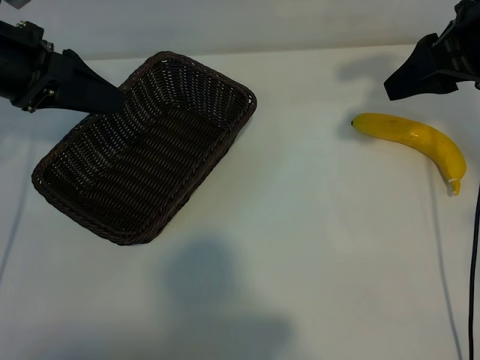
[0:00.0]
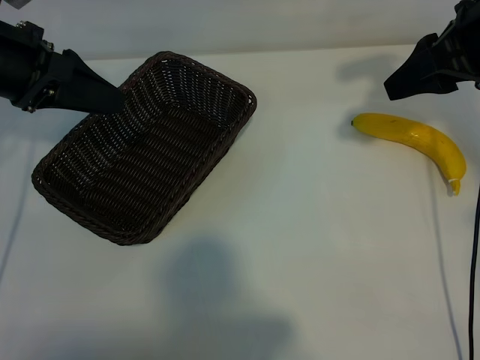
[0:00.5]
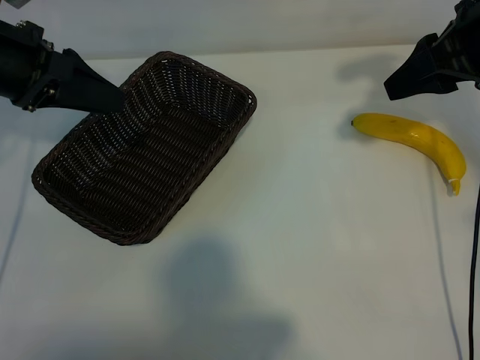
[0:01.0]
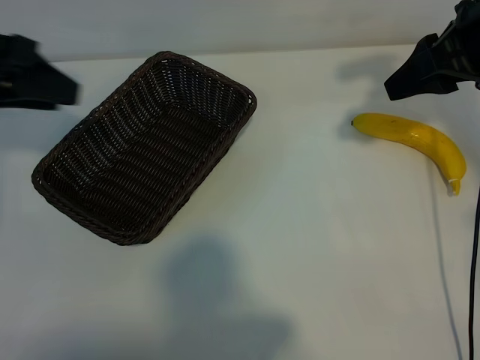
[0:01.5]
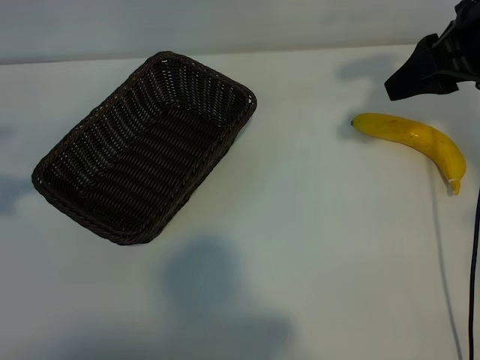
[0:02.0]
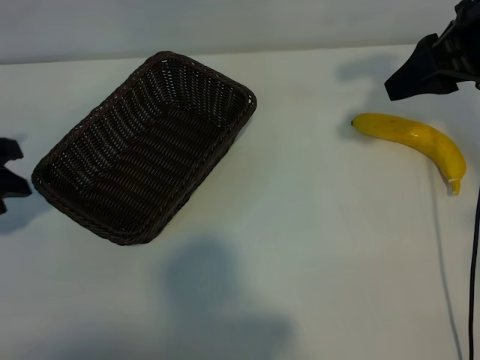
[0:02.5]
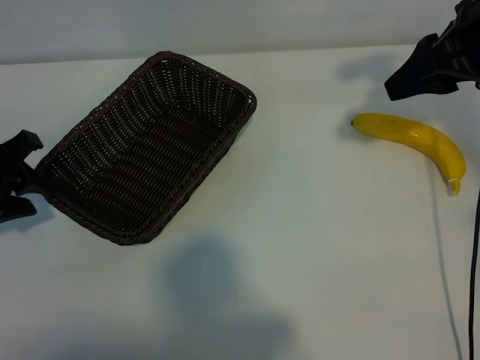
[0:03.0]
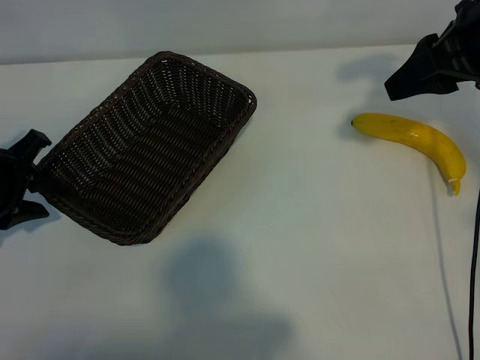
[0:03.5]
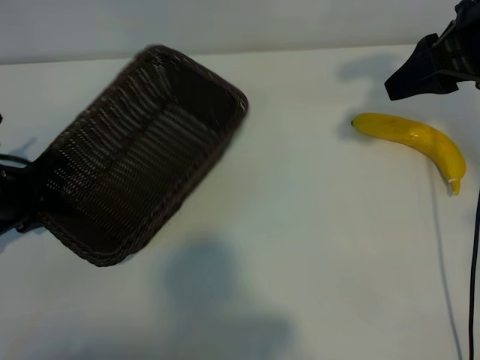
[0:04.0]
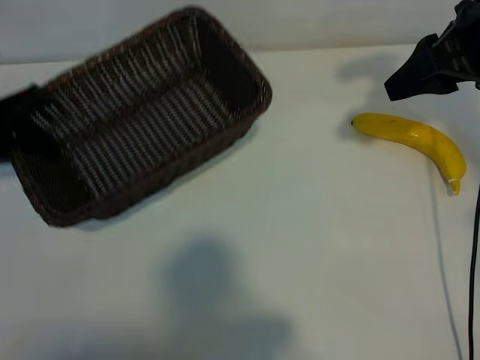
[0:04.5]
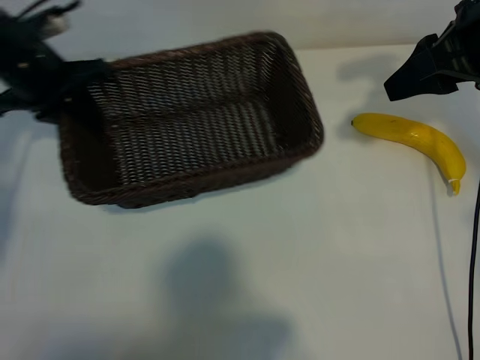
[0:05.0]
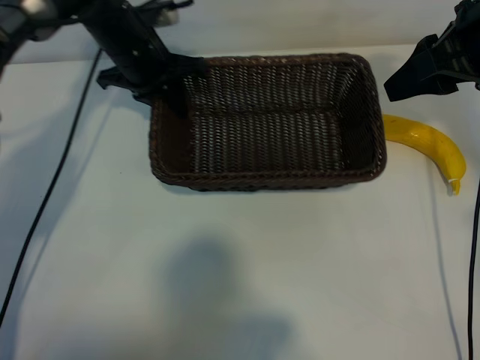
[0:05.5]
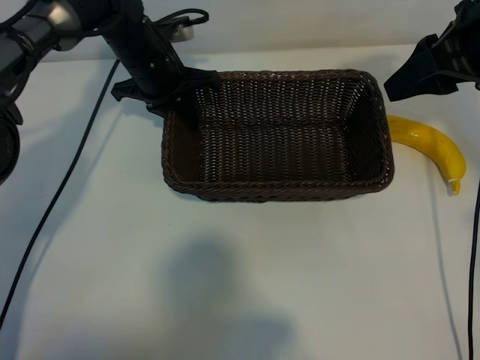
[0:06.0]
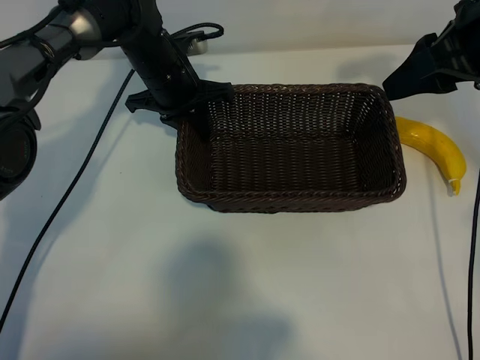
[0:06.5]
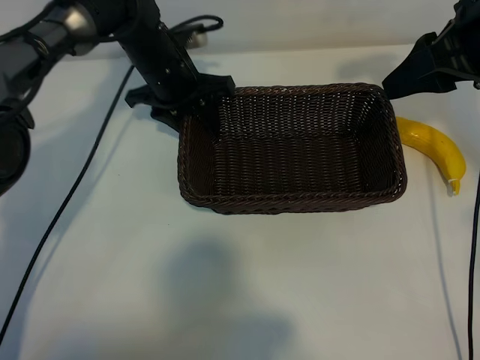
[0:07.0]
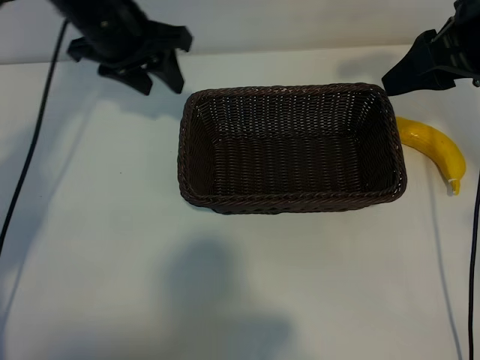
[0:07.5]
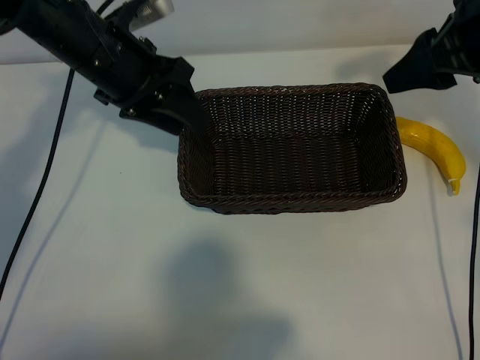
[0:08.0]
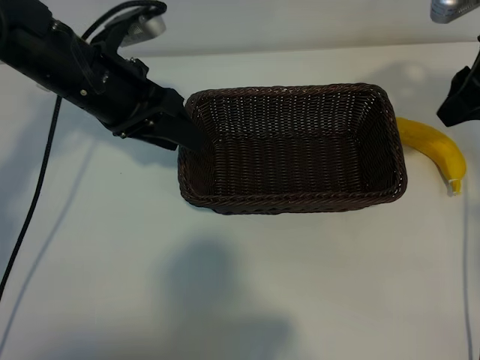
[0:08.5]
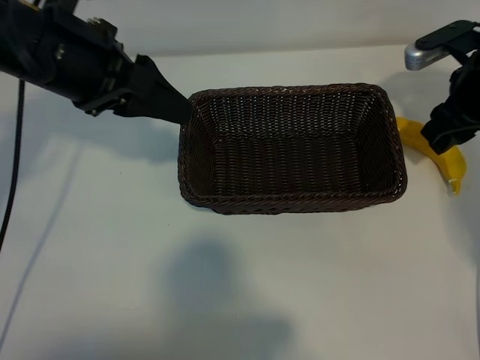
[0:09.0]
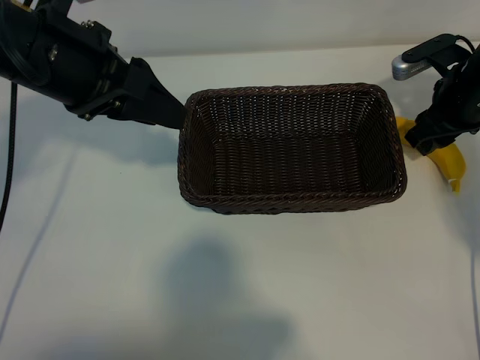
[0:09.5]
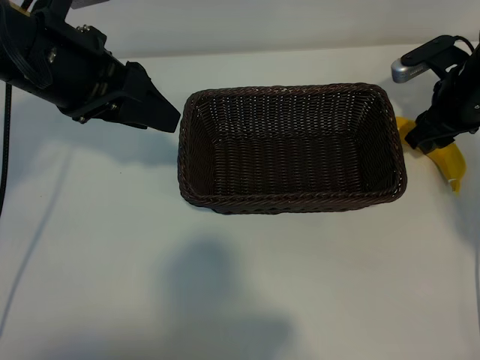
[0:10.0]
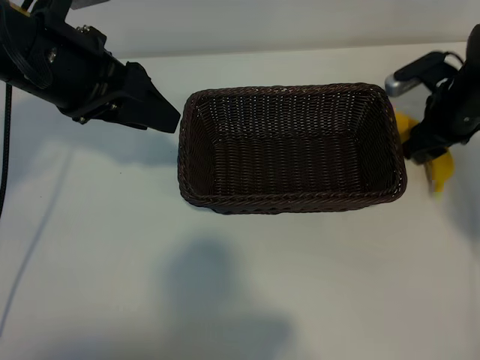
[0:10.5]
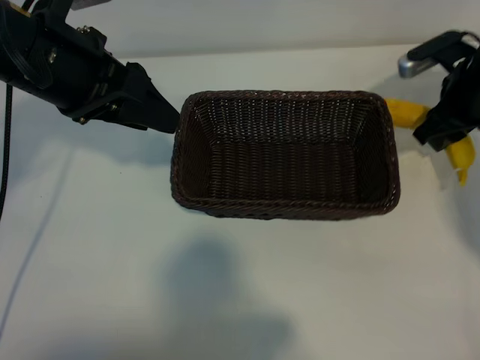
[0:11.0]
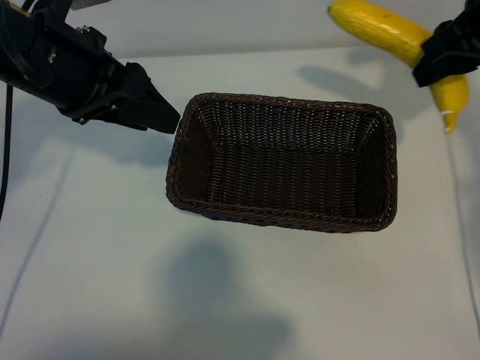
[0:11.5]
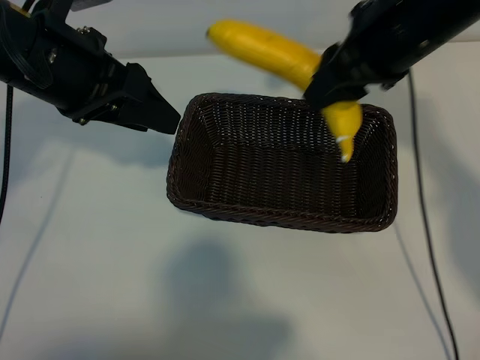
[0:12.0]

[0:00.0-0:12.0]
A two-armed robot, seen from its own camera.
Task of the whole recording: pick up the banana and put it into the basket.
Step, 0:01.0 to 0:04.0: Grasp the basket with the left gripper.
Step, 0:04.5 to 0:07.0: Place the basket in the center of the table with the left gripper.
Step, 0:07.5 to 0:10.5: Grasp the banana with right gripper.
